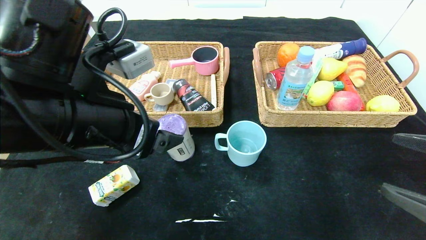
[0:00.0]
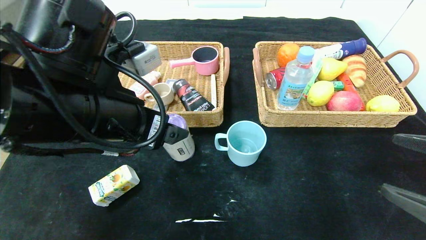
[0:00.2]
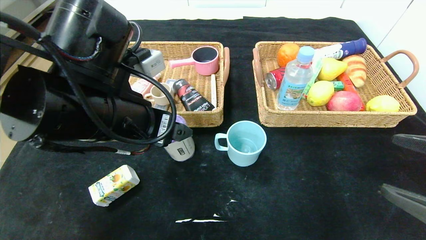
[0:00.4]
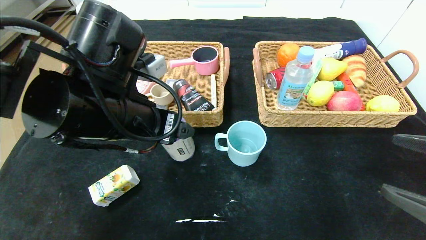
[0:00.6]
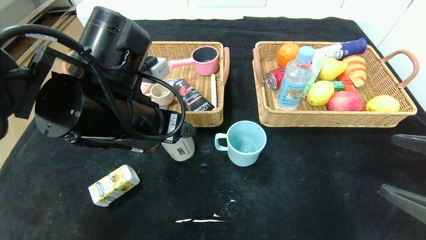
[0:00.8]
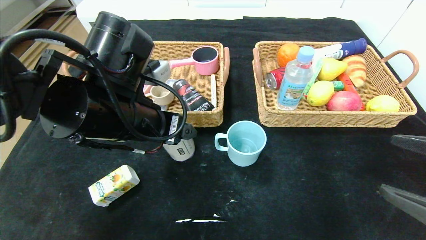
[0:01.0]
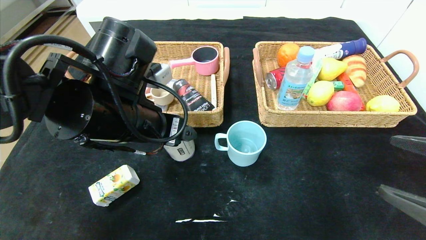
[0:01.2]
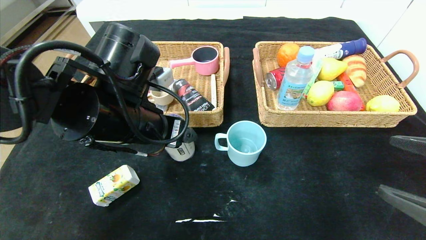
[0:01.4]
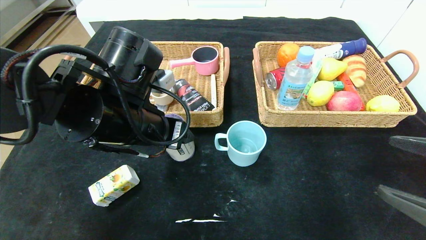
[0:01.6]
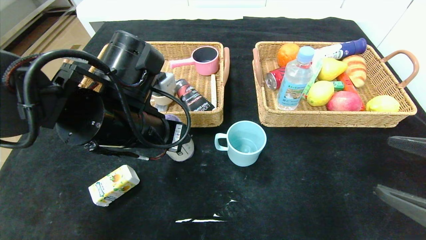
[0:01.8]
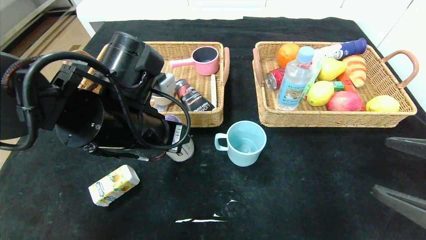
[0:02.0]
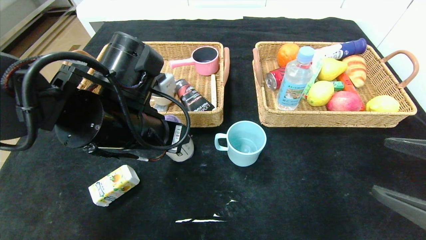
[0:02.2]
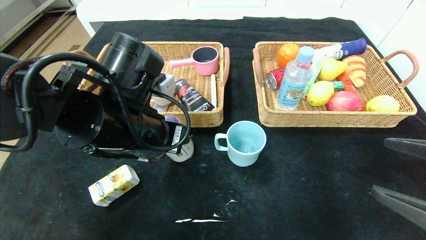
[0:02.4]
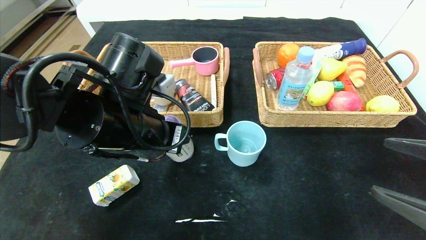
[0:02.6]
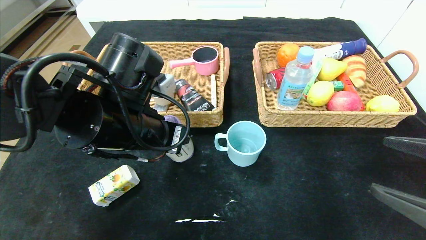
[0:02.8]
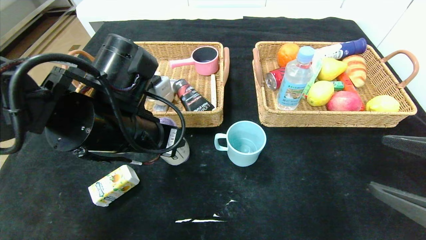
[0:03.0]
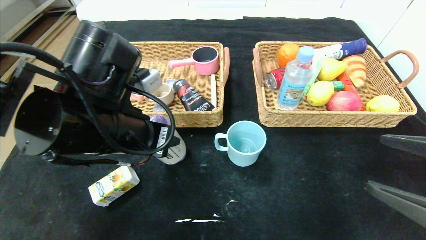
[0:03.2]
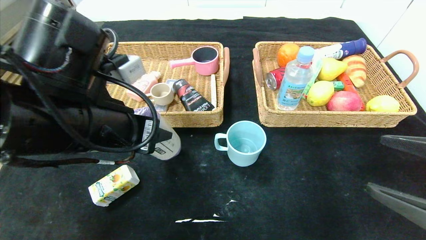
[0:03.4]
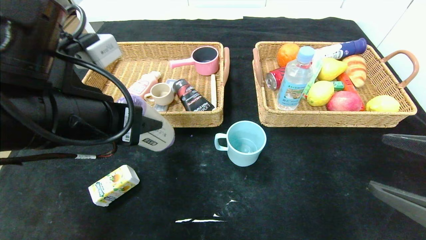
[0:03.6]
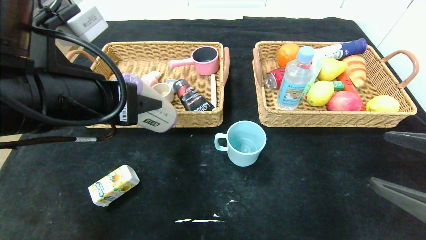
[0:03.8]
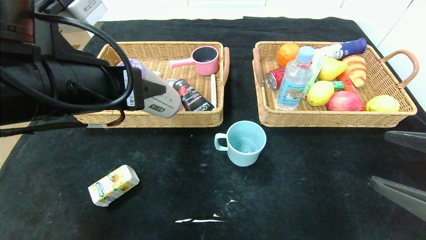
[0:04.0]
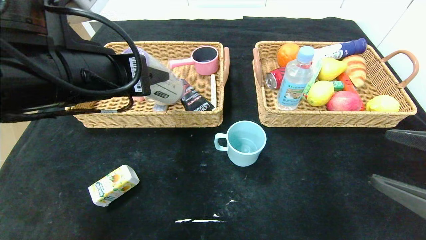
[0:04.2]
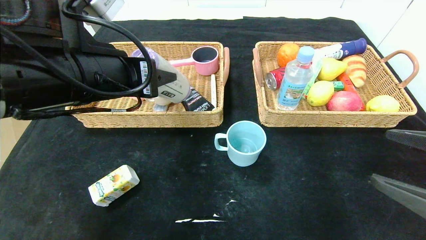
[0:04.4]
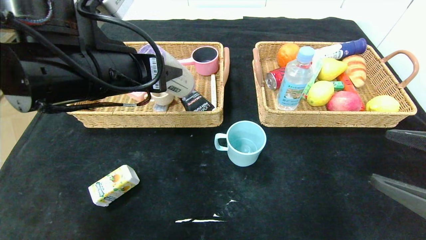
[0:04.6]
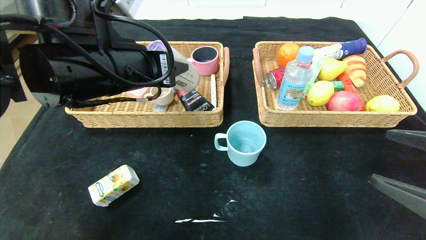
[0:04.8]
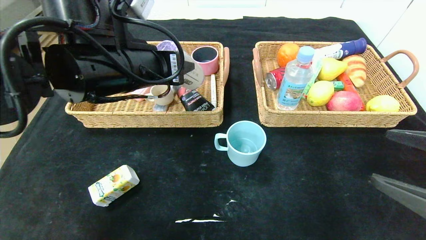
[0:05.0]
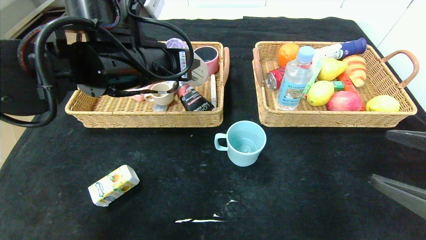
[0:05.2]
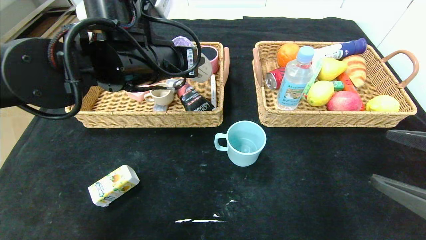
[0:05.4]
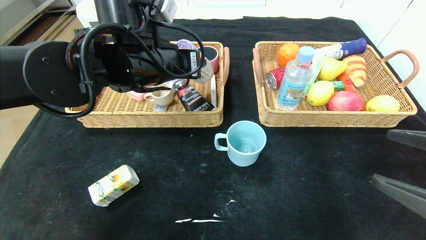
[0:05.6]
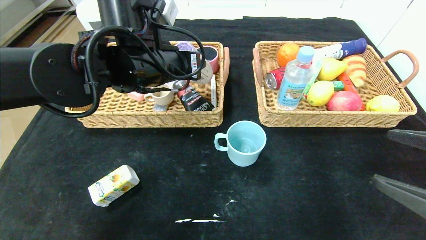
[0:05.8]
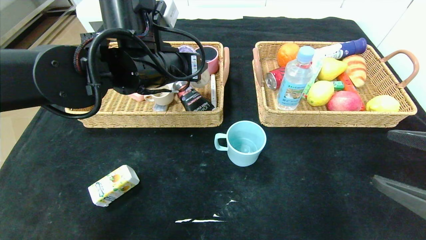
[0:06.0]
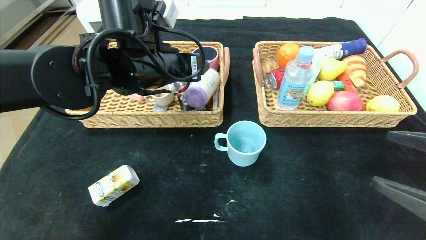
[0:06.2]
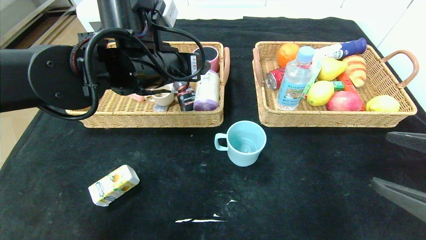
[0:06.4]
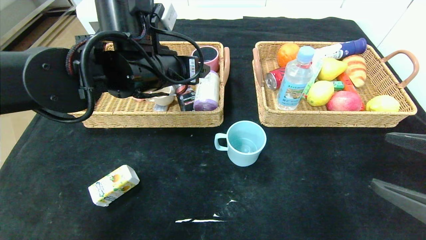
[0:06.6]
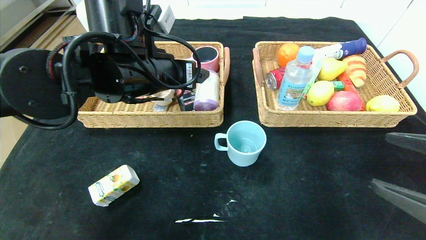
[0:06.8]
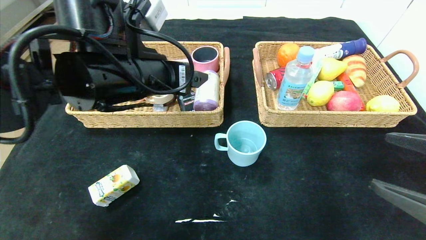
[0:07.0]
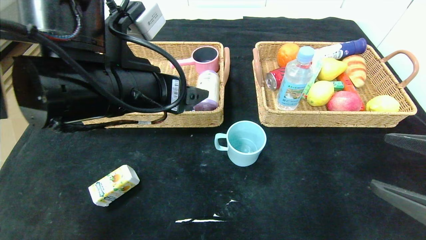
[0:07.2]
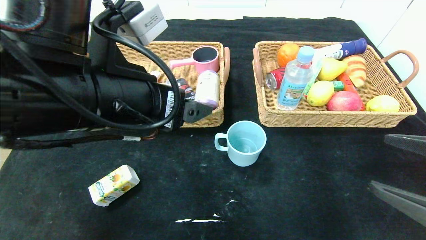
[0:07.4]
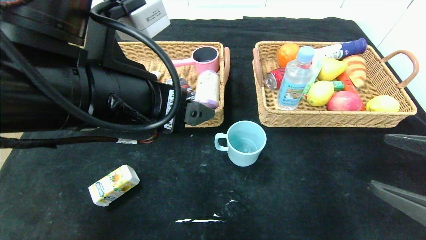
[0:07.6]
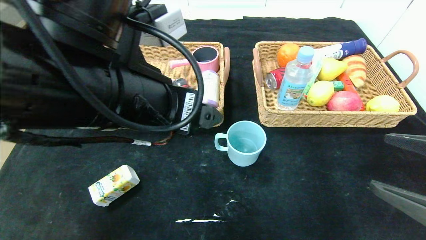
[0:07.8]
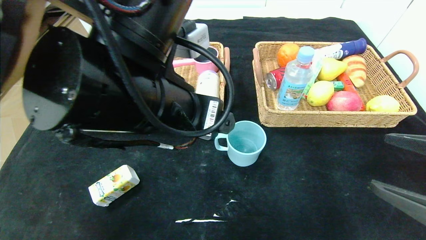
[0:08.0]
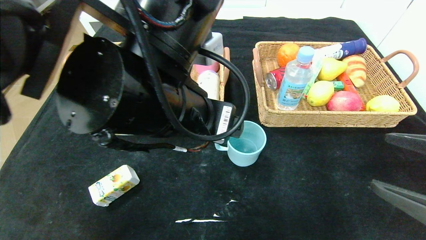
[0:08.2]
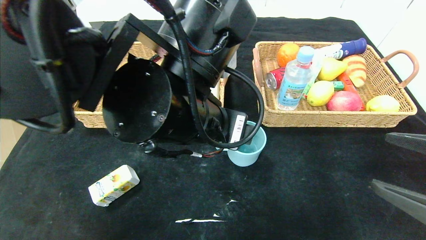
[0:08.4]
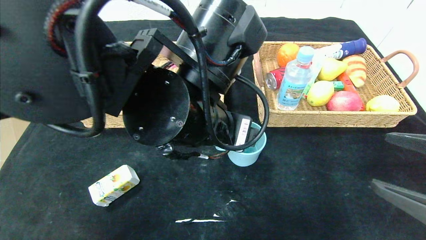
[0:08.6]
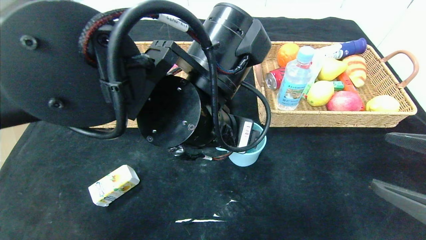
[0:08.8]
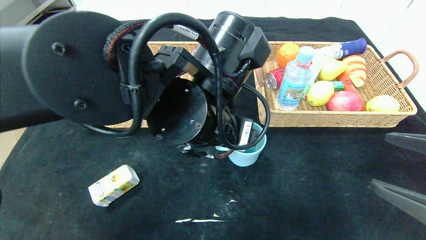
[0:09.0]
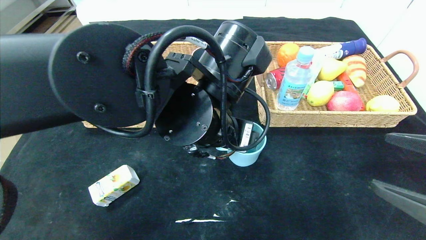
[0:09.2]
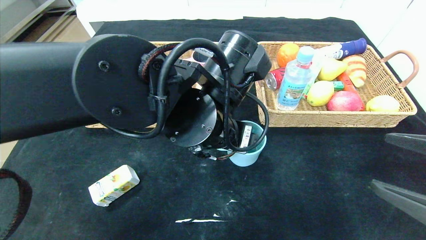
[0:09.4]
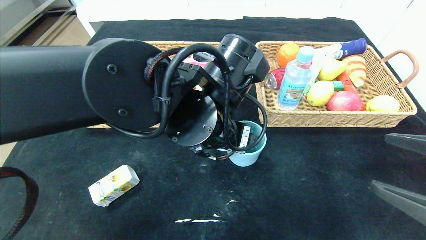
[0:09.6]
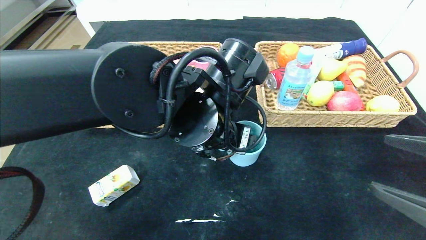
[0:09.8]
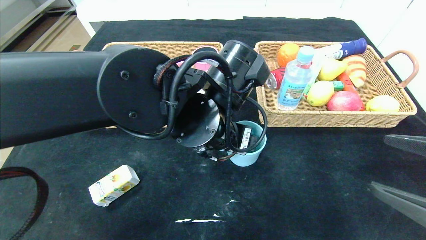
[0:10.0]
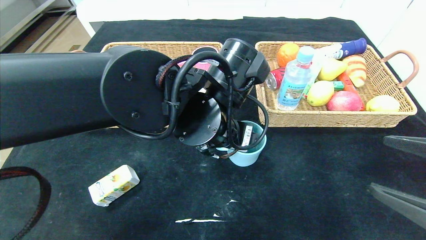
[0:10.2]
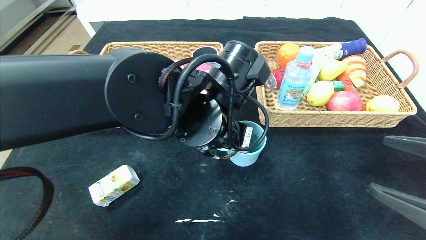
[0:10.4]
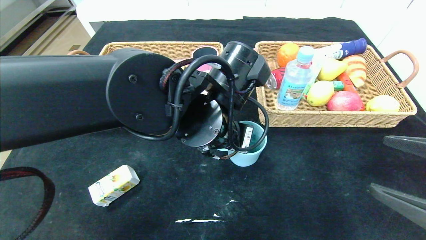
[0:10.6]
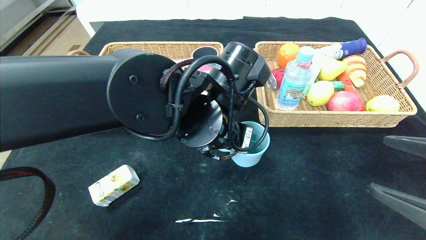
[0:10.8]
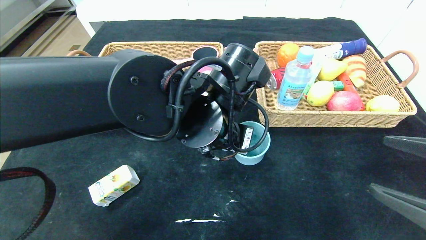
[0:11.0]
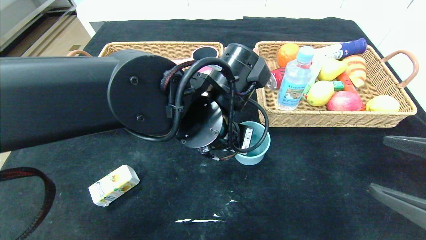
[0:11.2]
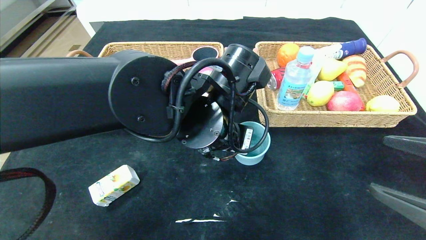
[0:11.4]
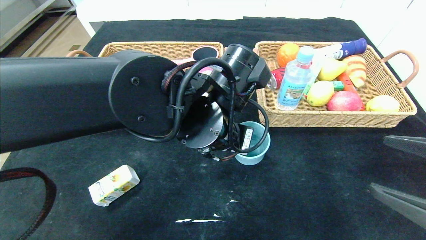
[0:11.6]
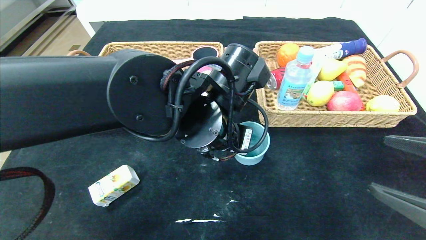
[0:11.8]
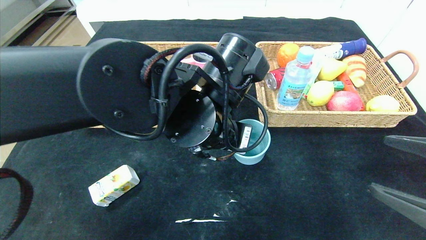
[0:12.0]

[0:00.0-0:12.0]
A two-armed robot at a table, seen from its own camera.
Step, 0:00.0 to 0:08.2: Pick up the purple garbage bag and put it in the left basket.
0:00.0 to 0:01.6: The left gripper is displaced forward by roughly 5 cm.
0:01.6 to 0:03.0: The left gripper closes.
0:03.0 to 0:04.4: The left gripper travels upward by approximately 5 cm.
0:04.4 to 0:06.0: The left gripper moves forward, some 10 cm.
0:06.0 to 0:07.6: The left gripper travels backward by roughly 15 cm, and opens its fingers.
0:07.6 to 0:09.0: The left gripper heads to the right, covering about 10 cm.
0:10.4 to 0:12.0: The left gripper closes.

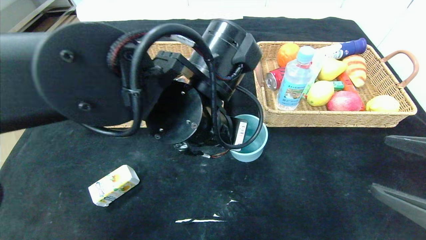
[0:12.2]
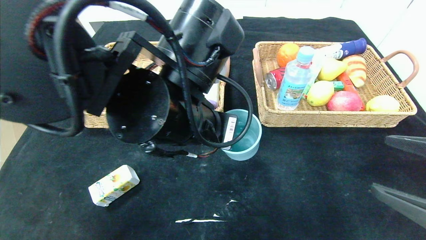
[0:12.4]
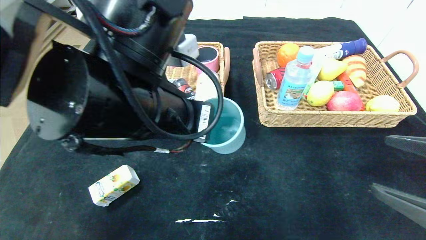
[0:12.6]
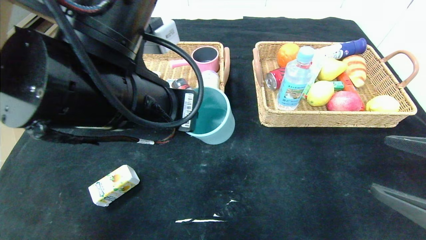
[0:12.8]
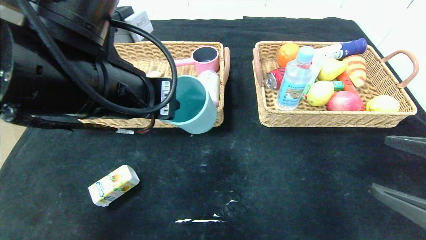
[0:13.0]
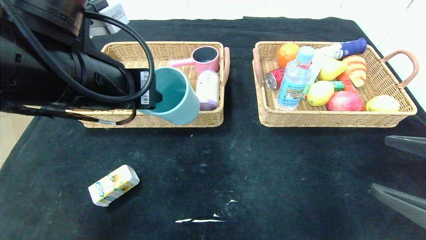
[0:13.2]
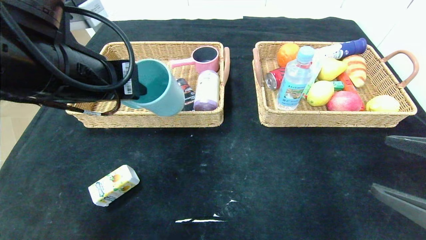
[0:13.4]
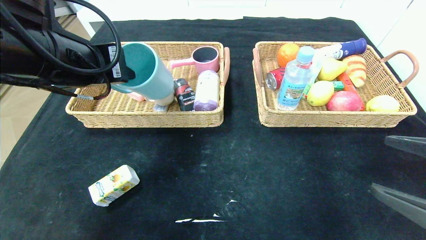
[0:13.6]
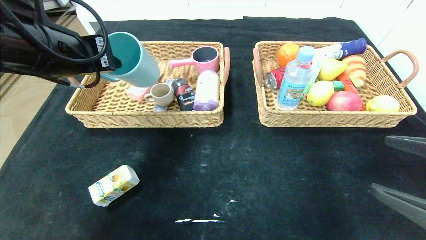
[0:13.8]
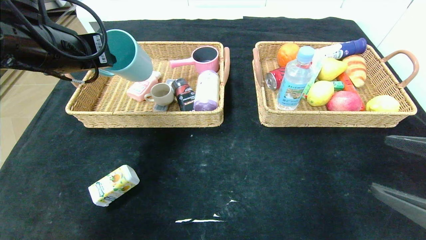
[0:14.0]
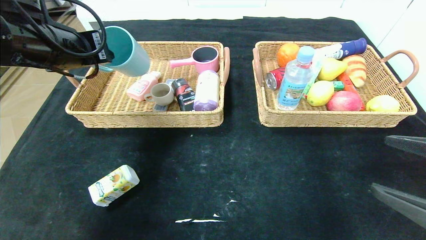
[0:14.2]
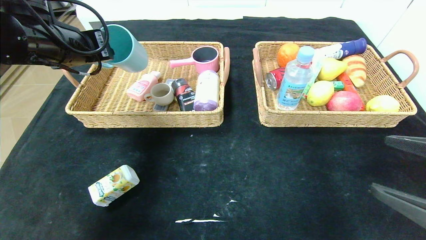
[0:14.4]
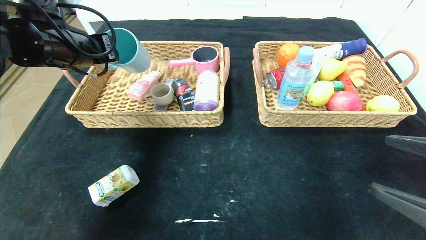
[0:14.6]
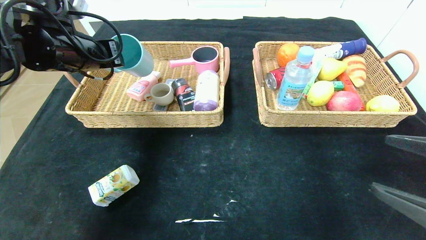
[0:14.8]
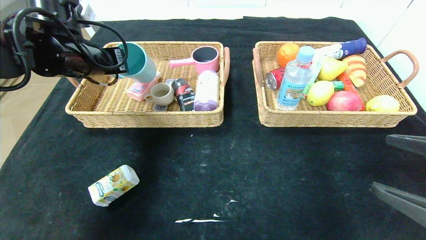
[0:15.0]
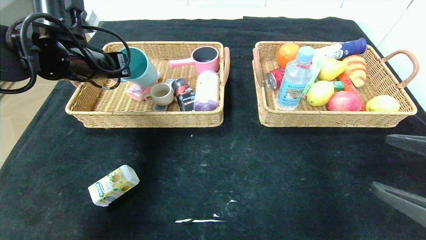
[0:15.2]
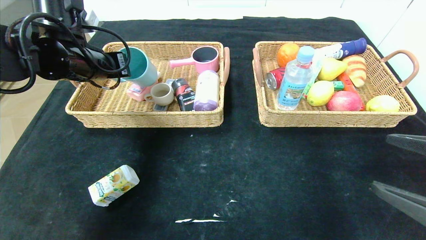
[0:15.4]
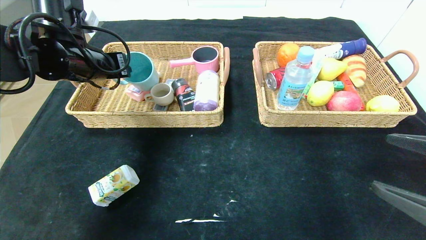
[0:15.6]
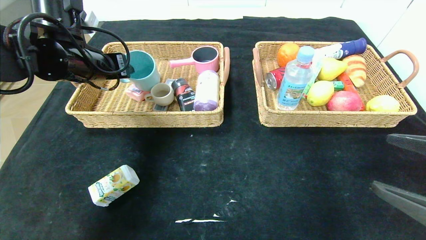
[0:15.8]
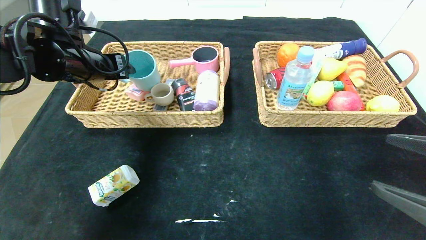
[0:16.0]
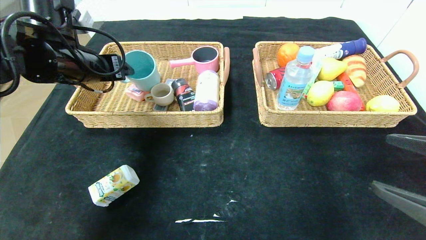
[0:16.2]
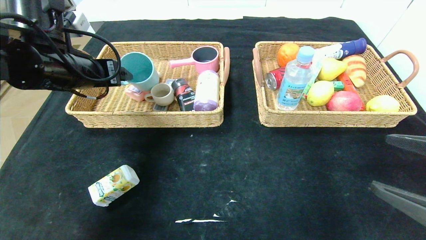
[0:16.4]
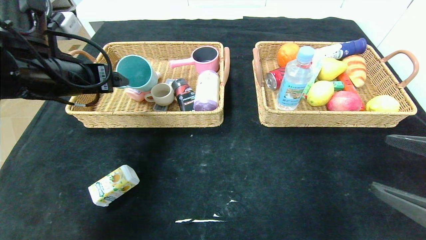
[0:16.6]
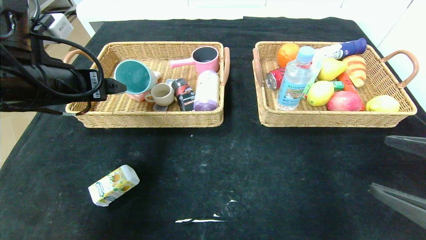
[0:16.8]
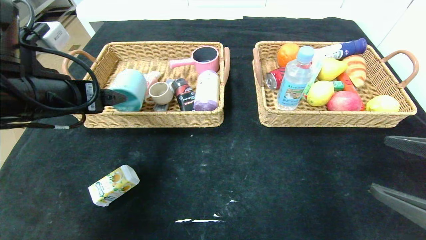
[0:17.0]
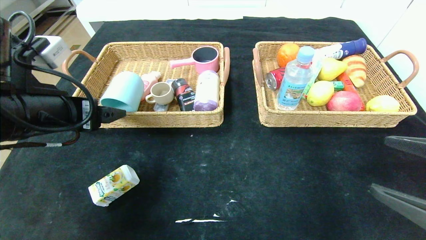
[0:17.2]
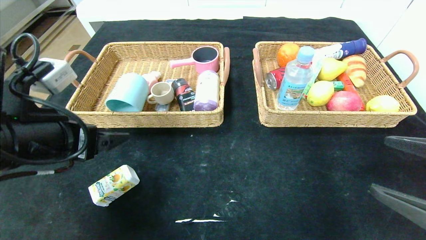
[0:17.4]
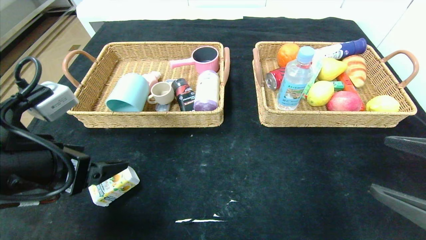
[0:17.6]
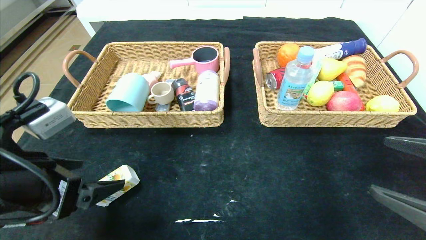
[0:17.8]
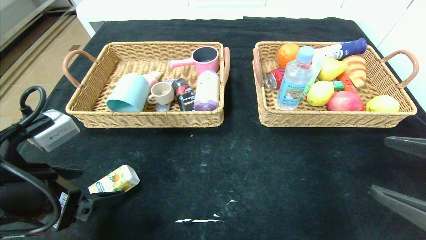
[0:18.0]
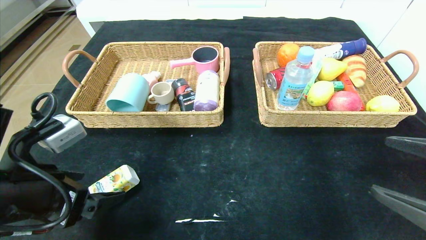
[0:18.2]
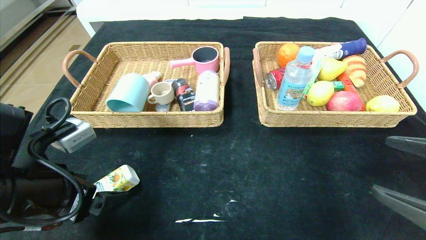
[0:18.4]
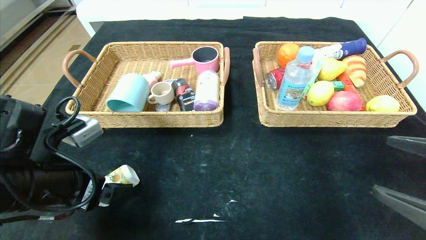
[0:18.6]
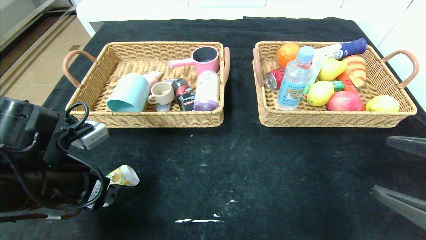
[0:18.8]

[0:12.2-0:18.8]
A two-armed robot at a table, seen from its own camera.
Step, 0:12.2 to 0:17.4: Pick up the blue cup and put it in the left basket.
0:12.2 to 0:13.8: The left gripper shifts roughly 20 cm to the left and upward.
0:13.8 to 0:15.4: The left gripper travels forward by some 10 cm.
0:15.4 to 0:17.2: The left gripper heads backward, covering roughly 15 cm, and opens.
0:17.2 to 0:18.8: The left gripper moves downward, about 10 cm.
